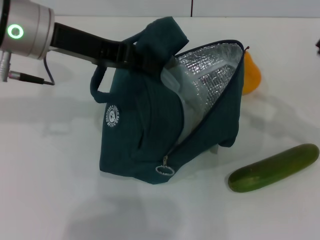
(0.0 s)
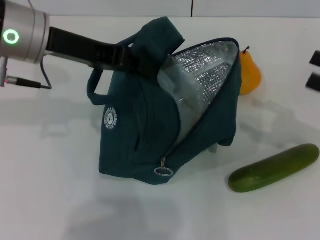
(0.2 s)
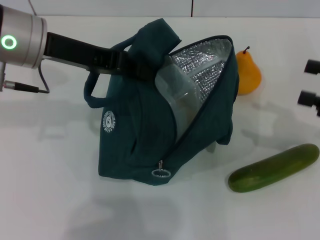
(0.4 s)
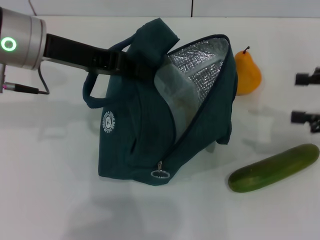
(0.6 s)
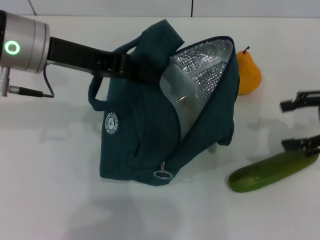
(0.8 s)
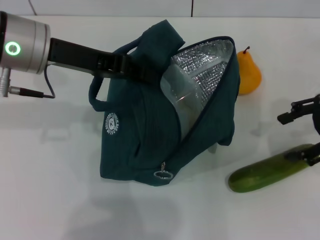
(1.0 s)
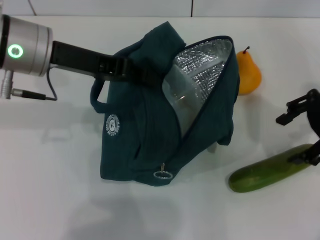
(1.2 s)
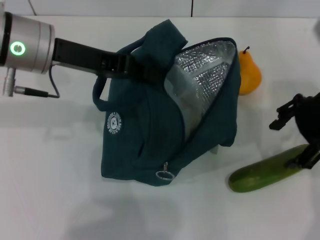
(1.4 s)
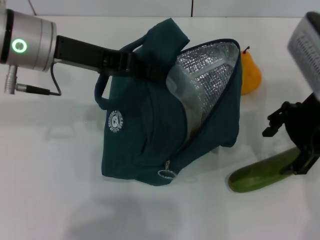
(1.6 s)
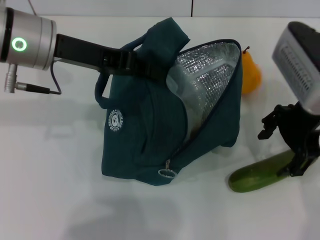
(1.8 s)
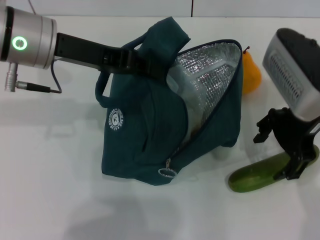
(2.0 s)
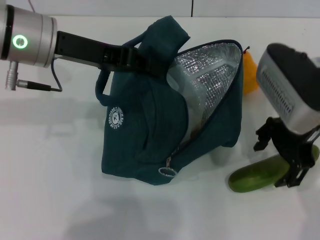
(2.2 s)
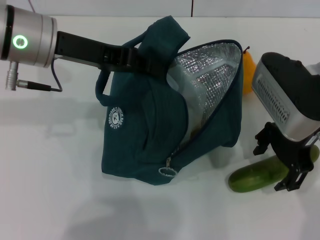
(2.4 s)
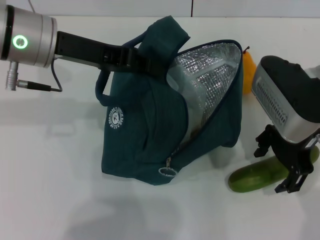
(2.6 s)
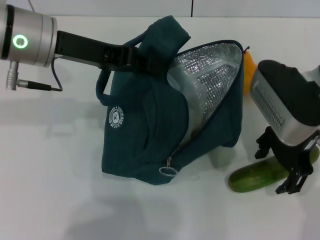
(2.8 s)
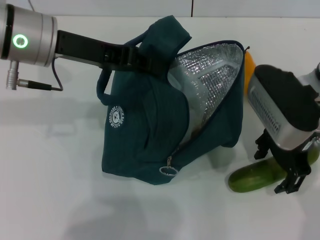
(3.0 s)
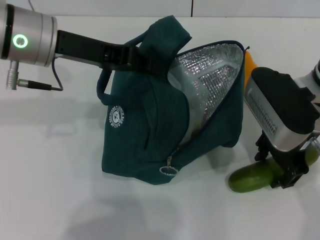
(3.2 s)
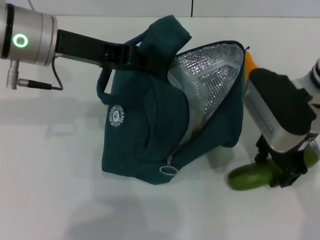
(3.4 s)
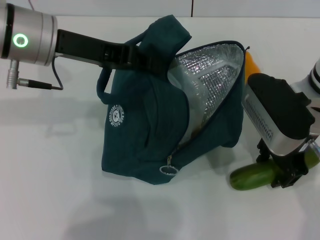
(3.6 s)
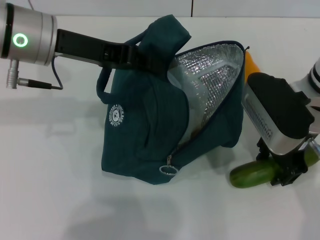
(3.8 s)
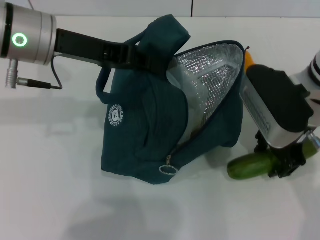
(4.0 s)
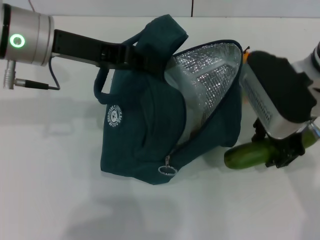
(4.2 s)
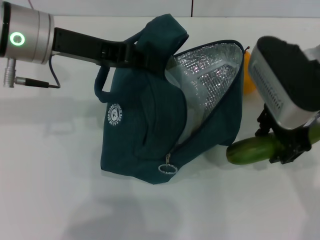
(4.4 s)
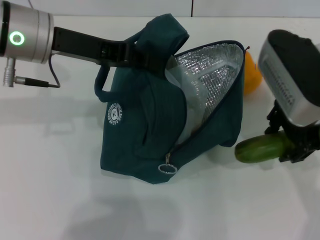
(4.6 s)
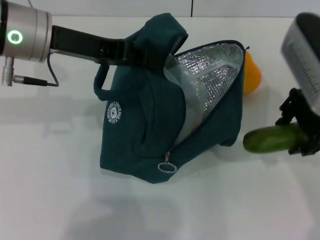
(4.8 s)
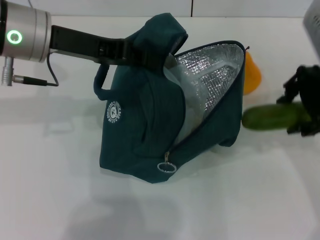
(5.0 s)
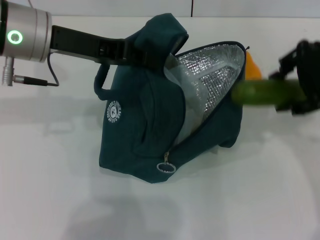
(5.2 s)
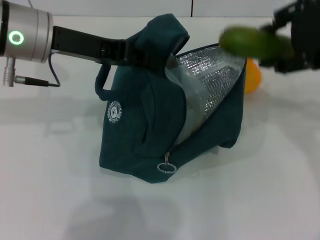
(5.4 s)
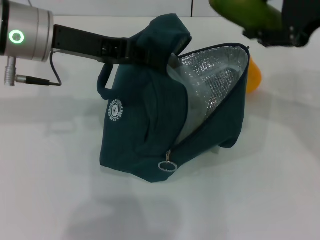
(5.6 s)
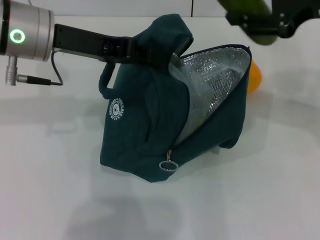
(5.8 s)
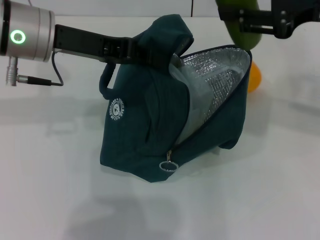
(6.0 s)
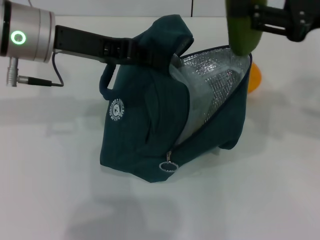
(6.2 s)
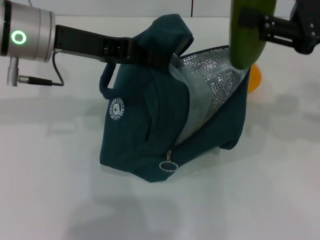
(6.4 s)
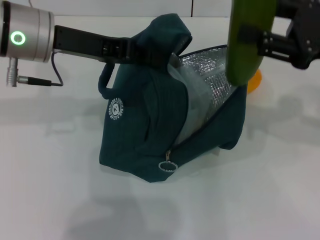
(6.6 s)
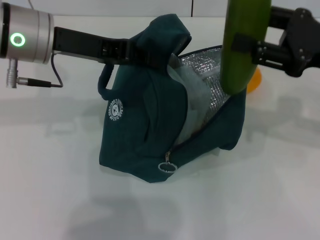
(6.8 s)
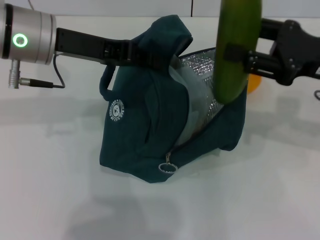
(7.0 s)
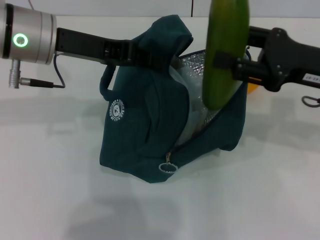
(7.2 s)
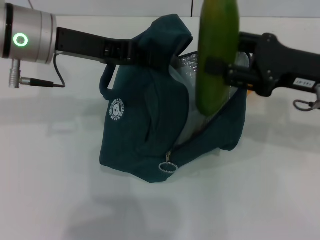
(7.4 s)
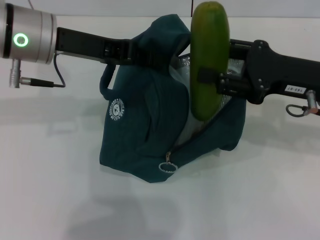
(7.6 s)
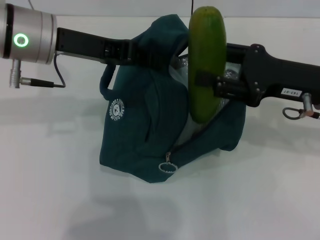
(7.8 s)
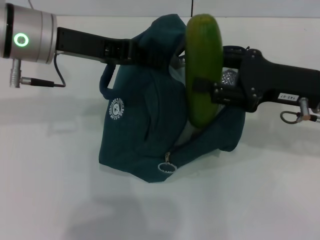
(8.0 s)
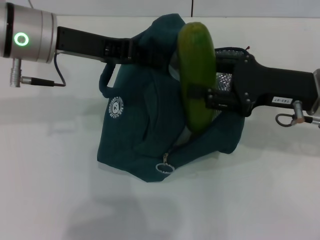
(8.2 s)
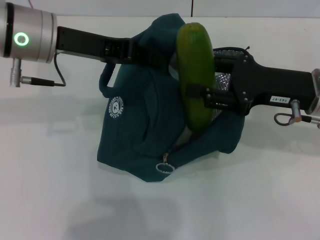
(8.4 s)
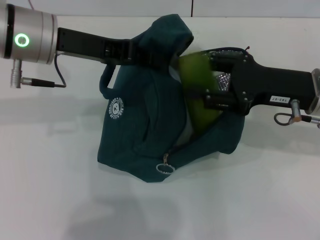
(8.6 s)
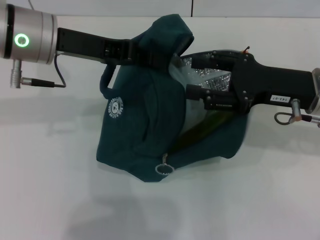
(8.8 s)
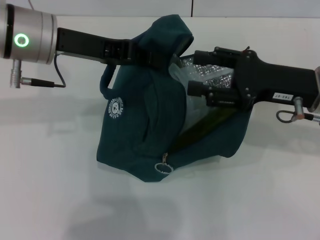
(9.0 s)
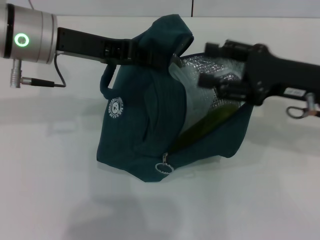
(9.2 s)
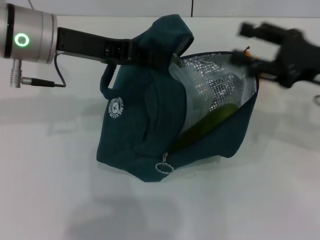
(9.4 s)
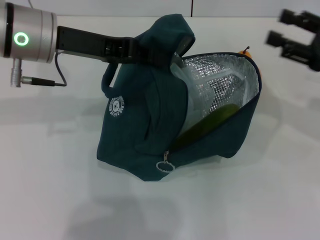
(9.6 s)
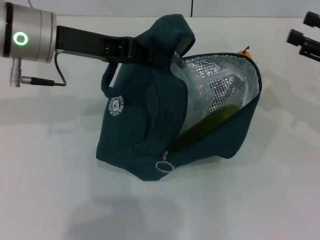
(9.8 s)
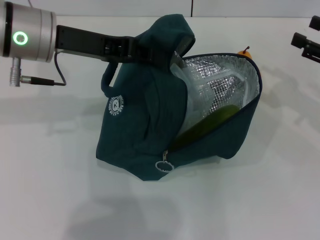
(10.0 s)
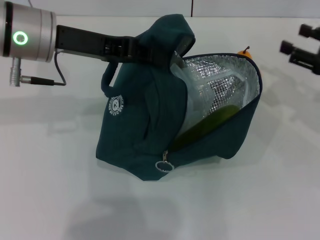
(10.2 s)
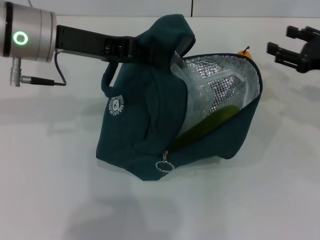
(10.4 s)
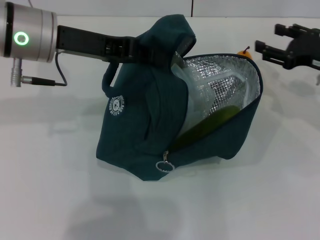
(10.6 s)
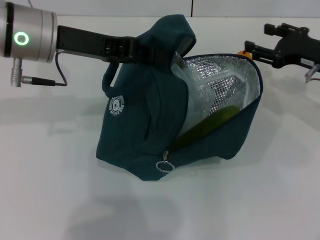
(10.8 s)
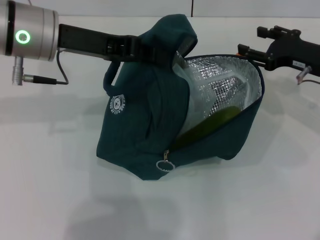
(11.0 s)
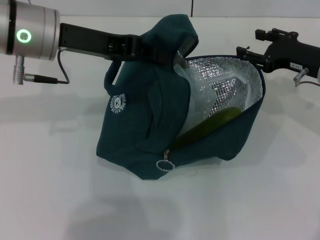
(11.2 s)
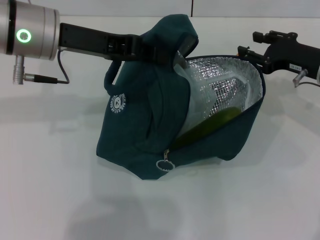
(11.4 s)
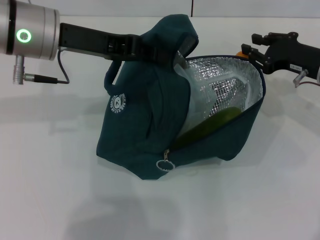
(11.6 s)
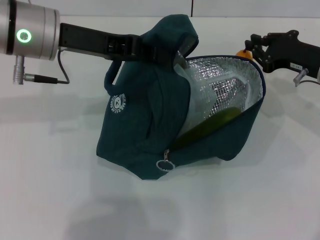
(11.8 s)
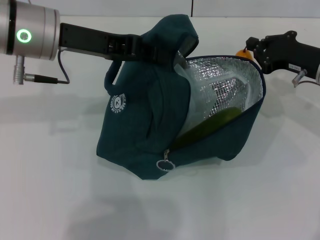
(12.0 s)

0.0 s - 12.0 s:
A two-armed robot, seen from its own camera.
Step, 0.0 s - 3.6 s: Pick up the cucumber with your right hand.
Step, 3.8 s - 8.8 s: Put the cucumber into the lunch bag with your right hand.
0.0 s - 1.6 s: The right gripper moves to the left, upward and forward, roughly 20 cm.
1.6 s - 3.0 s: The right gripper changes place by about 5 cm.
3.0 s - 4.4 s: The grippers make only small movements.
4.4 s - 6.0 s: The right gripper shifts about 10 cm to the right and upward.
6.0 s - 7.6 s: The right gripper moves downward, roughly 10 cm.
7.6 s - 9.0 s: The grippers make only small movements.
9.0 s - 10.4 s: The right gripper goes some 10 cm to the right.
10.4 s - 12.0 s: The right gripper moves roughly 5 cm, and closes.

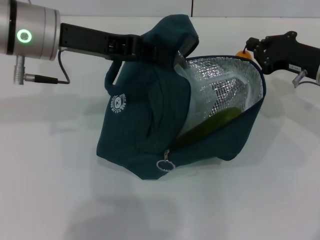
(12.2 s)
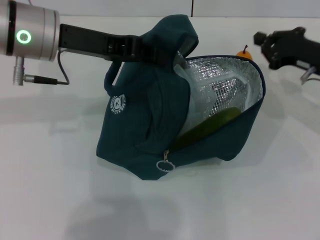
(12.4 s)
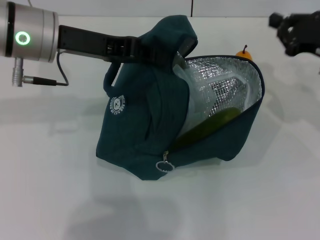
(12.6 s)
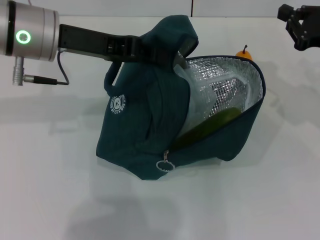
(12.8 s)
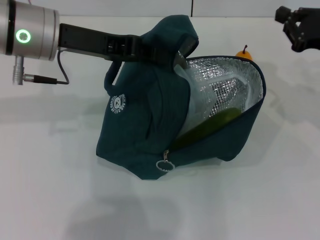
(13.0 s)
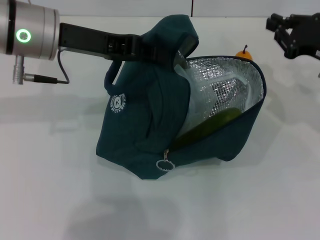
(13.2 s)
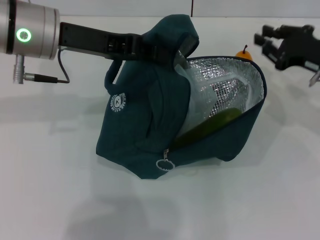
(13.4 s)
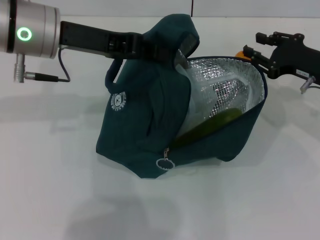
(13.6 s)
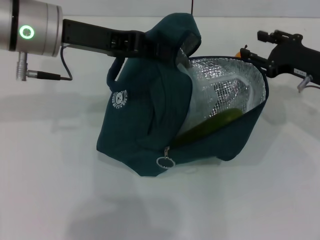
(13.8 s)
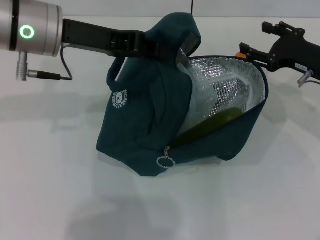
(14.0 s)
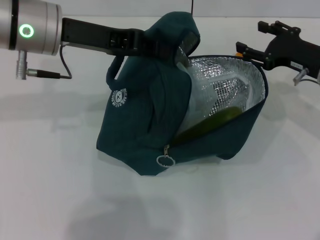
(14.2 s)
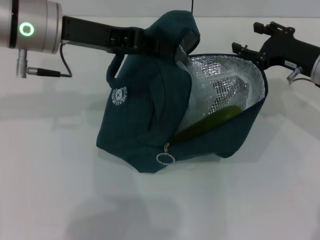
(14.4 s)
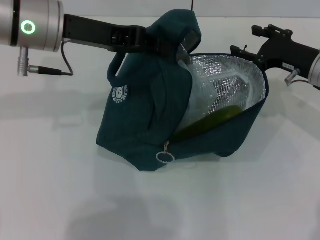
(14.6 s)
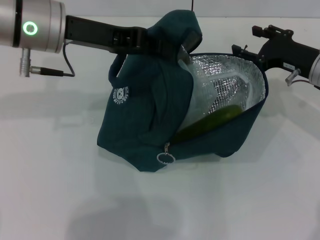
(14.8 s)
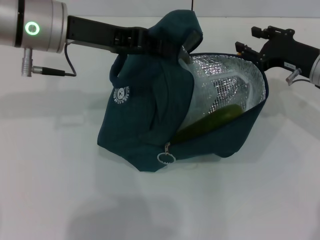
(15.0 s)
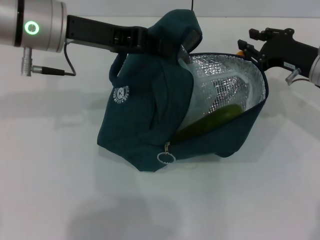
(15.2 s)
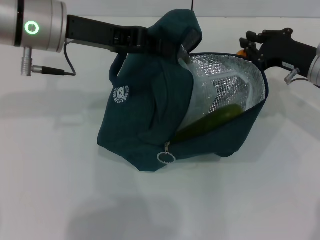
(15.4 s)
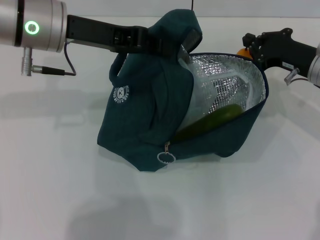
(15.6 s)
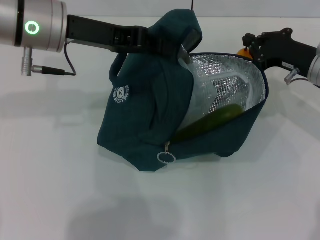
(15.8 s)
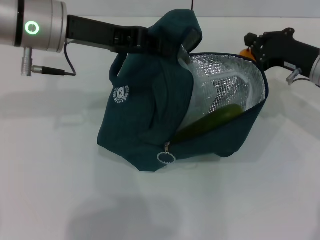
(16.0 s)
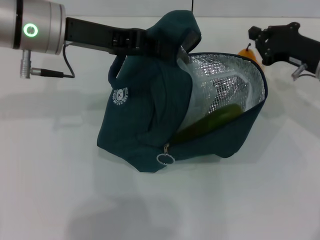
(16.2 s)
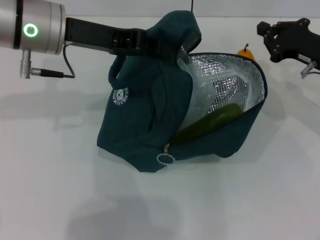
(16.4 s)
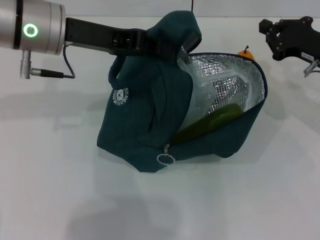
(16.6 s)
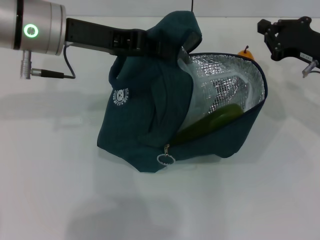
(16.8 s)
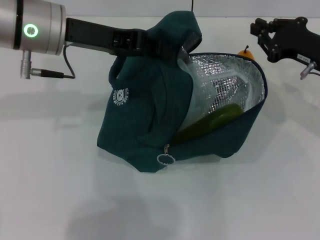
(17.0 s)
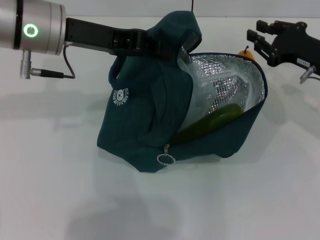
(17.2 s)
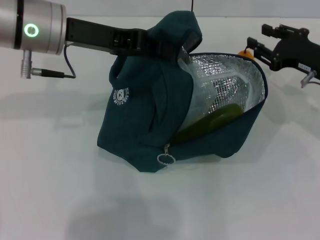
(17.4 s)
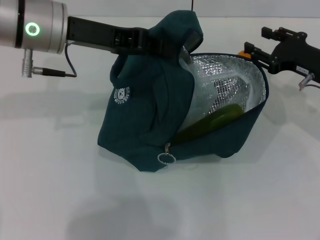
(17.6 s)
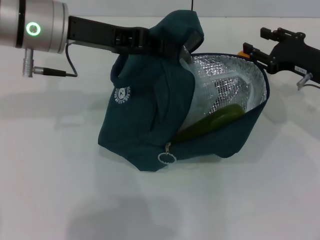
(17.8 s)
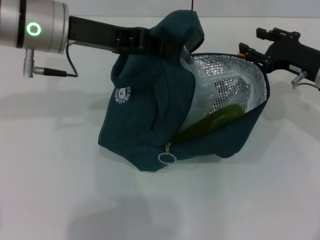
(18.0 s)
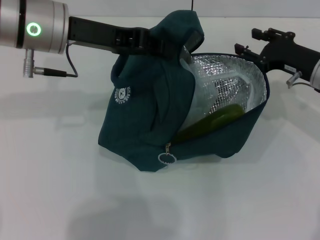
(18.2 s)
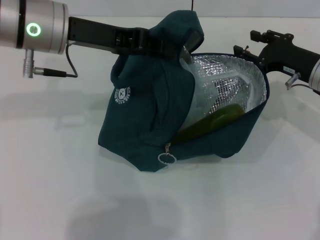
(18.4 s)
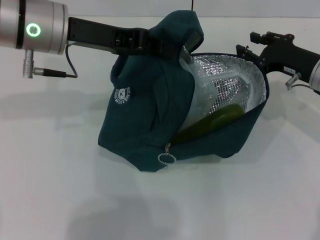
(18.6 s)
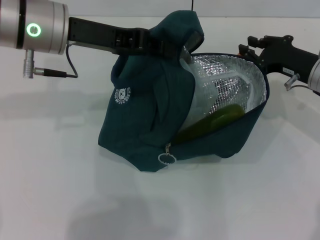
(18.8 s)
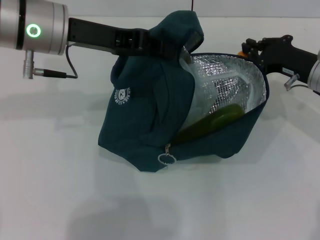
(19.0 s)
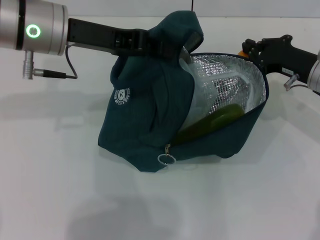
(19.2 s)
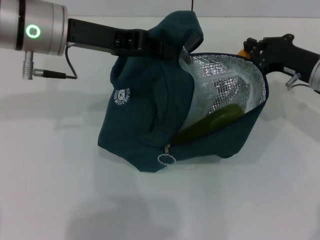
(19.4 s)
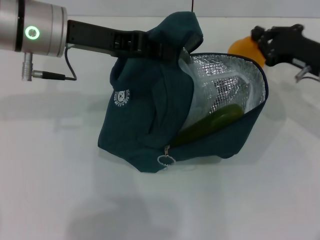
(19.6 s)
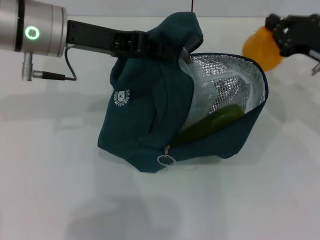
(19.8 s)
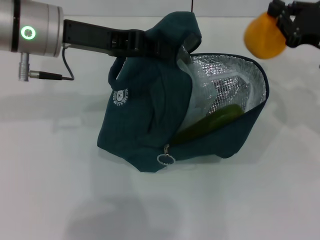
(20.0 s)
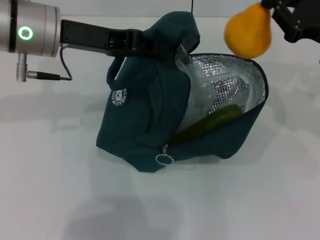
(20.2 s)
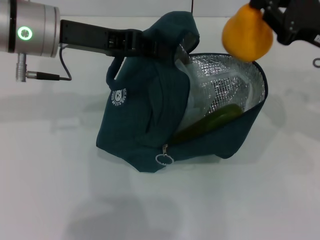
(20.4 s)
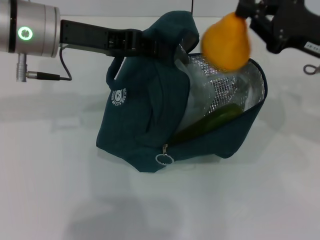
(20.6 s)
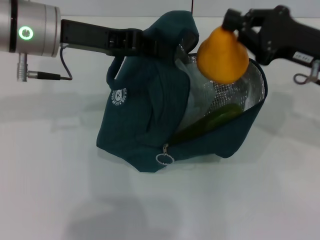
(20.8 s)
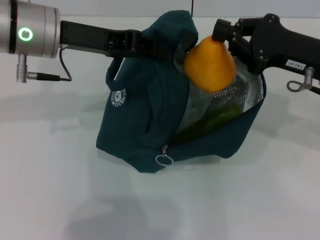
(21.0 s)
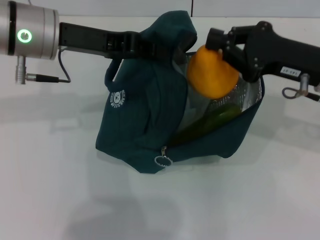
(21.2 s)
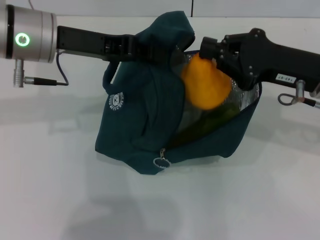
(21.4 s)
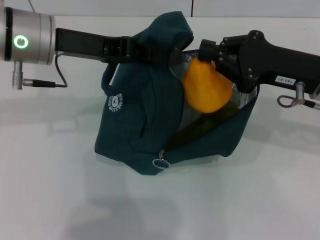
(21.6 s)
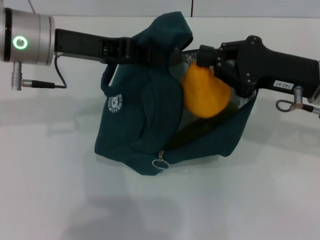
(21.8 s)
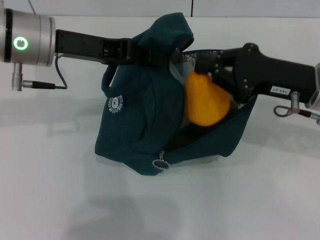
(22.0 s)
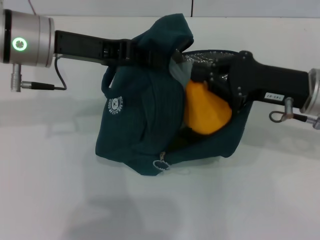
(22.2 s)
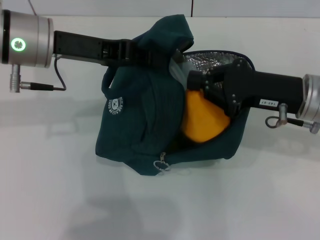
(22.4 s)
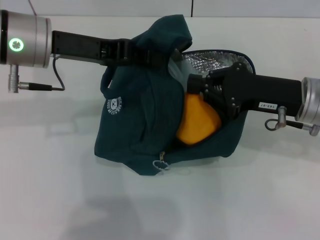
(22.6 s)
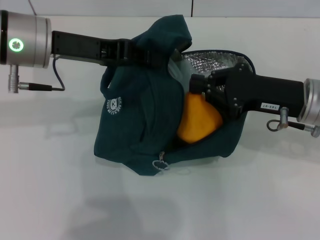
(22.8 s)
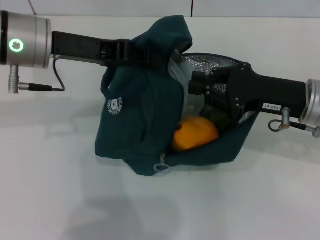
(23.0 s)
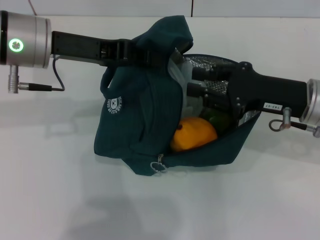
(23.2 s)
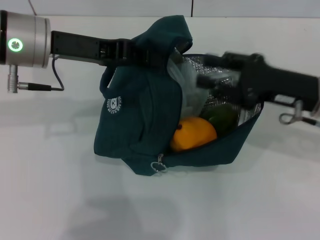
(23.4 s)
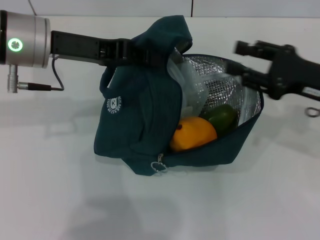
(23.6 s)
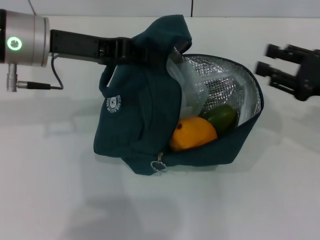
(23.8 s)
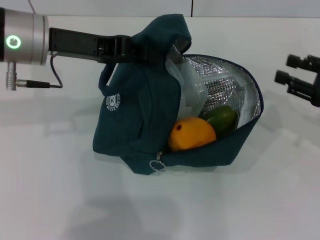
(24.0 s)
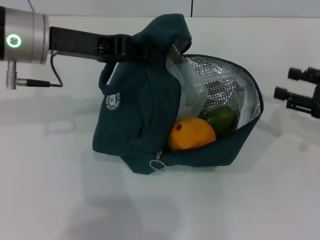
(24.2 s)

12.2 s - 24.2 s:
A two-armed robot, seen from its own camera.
Step, 12.2 s - 19.2 s: Grab the pear with your right hand.
12.2 s - 13.8 s: The right gripper opens.
13.8 s - 15.2 s: The right gripper opens and closes again.
15.2 s - 16.6 s: The right gripper closes its fingers.
16.6 s - 18.2 s: The right gripper opens its fingers.
18.2 s - 19.8 s: The right gripper closes.
19.8 s - 21.2 s: The right gripper moves to the left, about 5 cm.
22.6 s - 24.2 s: The right gripper is displaced to the right by some 15 cm, and opens up.
